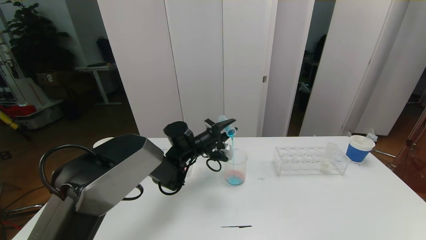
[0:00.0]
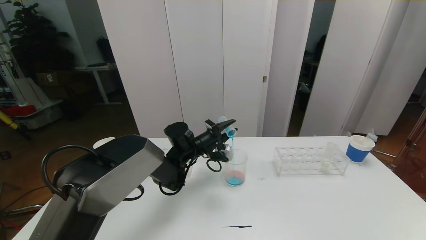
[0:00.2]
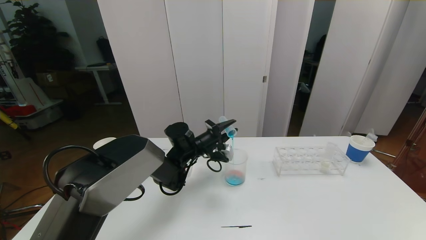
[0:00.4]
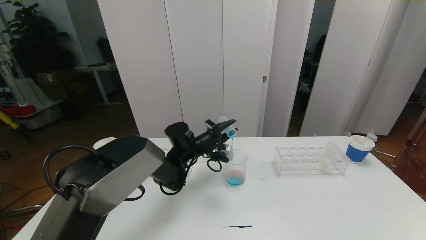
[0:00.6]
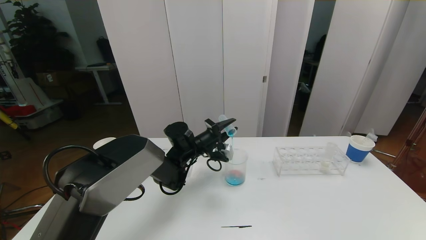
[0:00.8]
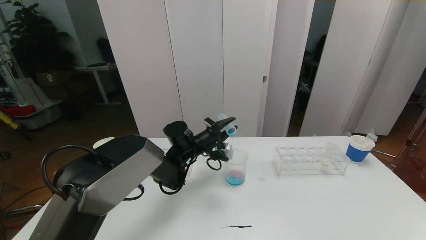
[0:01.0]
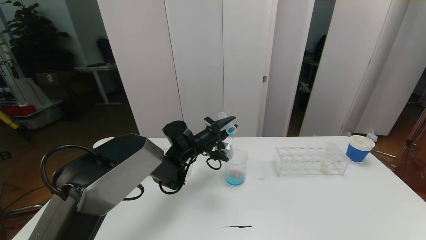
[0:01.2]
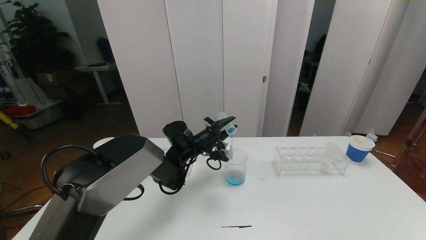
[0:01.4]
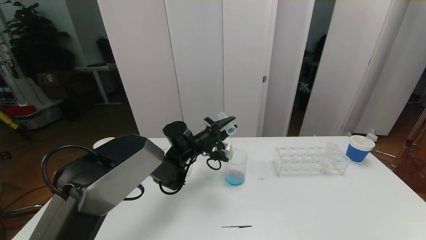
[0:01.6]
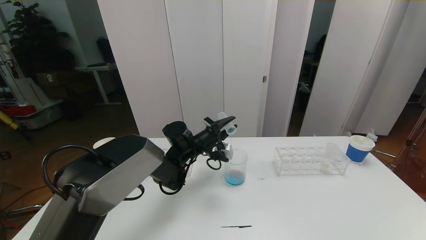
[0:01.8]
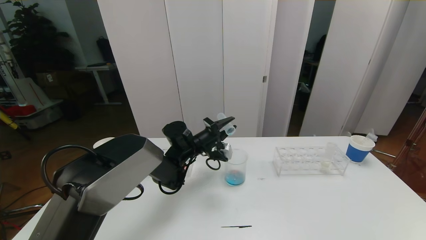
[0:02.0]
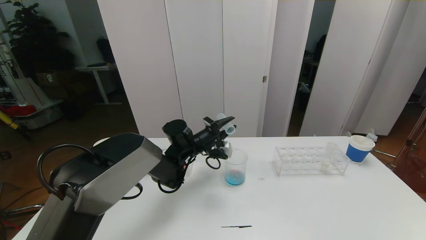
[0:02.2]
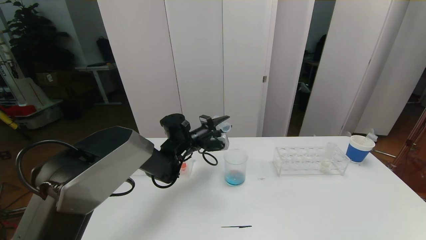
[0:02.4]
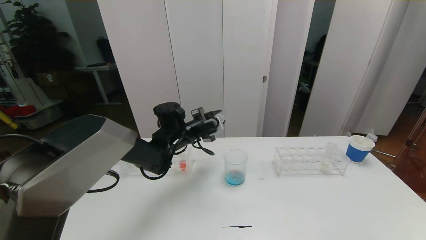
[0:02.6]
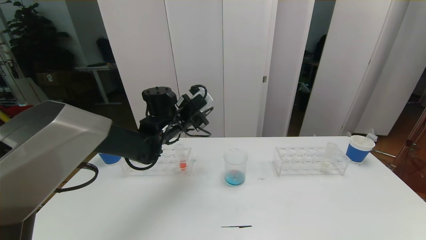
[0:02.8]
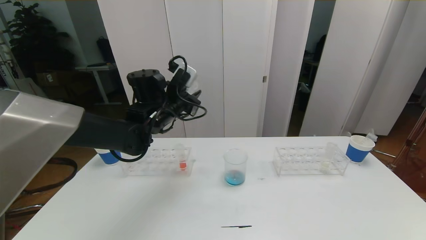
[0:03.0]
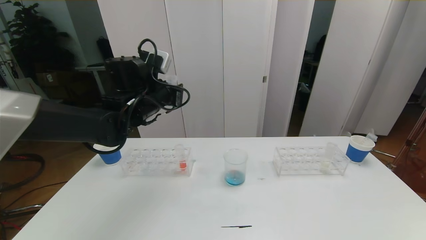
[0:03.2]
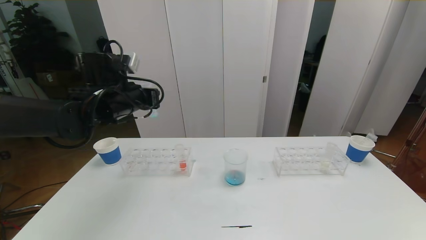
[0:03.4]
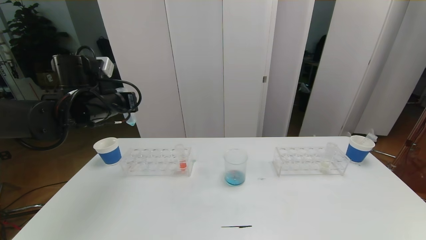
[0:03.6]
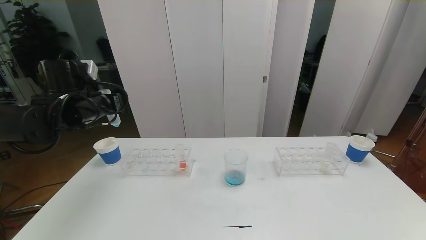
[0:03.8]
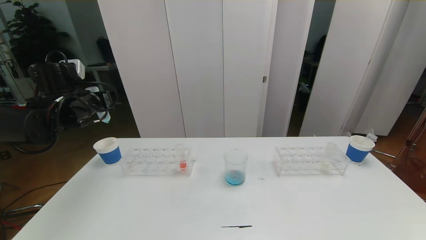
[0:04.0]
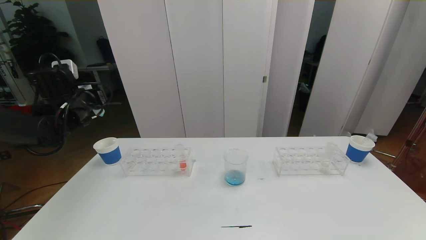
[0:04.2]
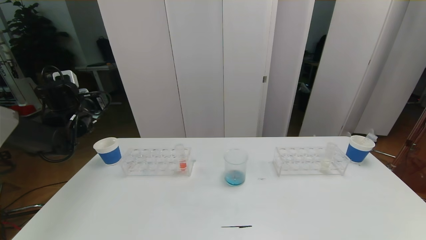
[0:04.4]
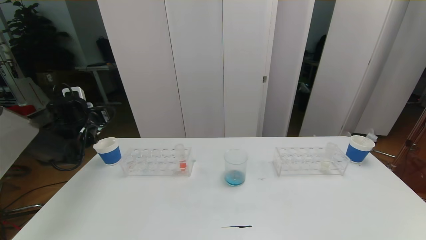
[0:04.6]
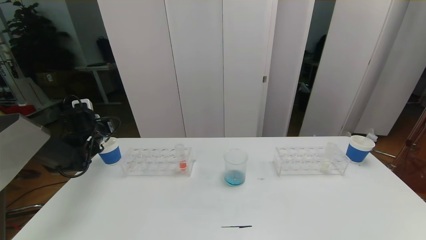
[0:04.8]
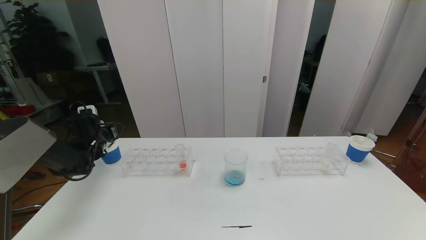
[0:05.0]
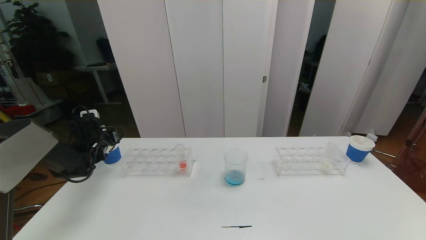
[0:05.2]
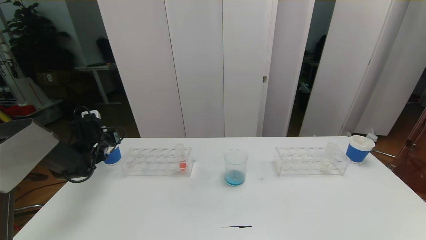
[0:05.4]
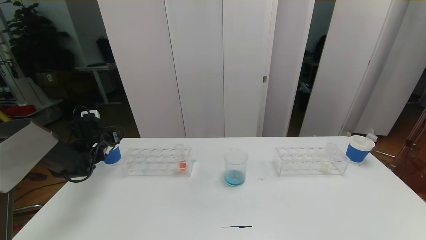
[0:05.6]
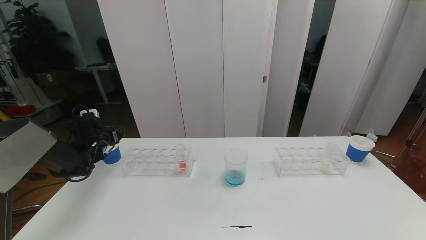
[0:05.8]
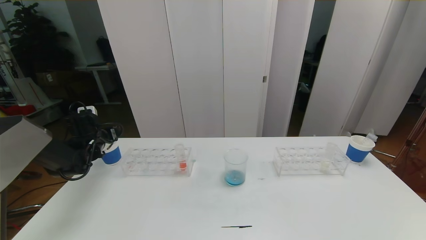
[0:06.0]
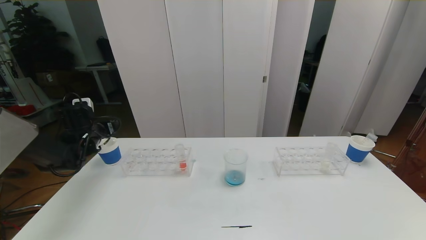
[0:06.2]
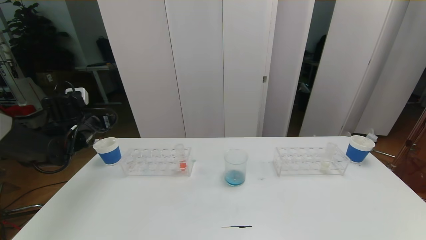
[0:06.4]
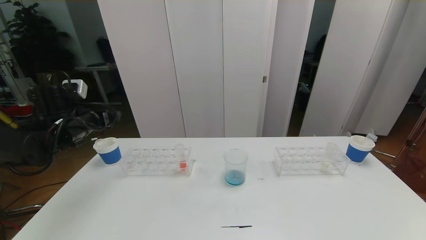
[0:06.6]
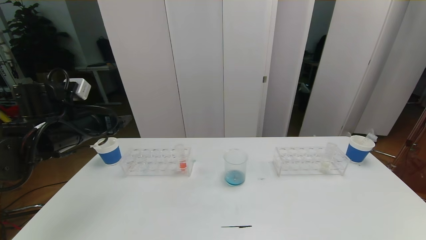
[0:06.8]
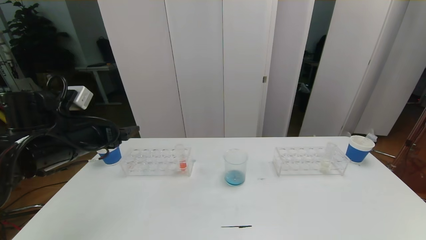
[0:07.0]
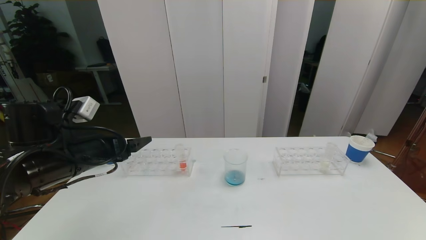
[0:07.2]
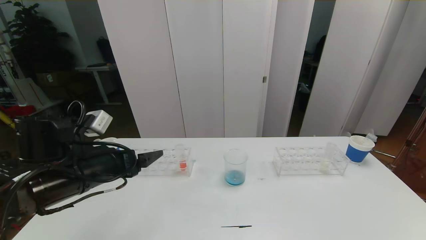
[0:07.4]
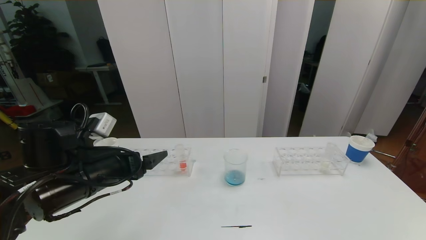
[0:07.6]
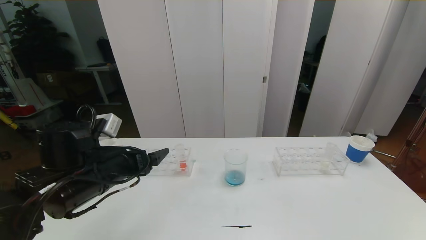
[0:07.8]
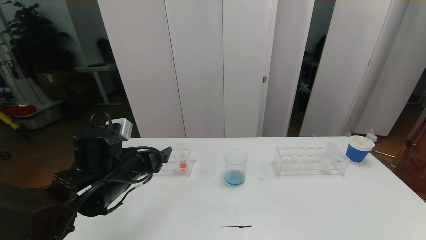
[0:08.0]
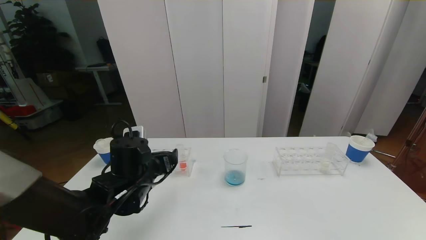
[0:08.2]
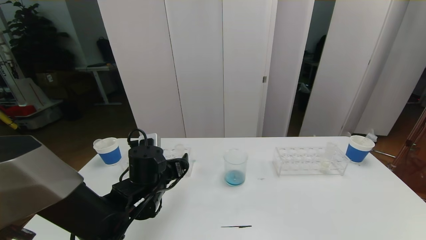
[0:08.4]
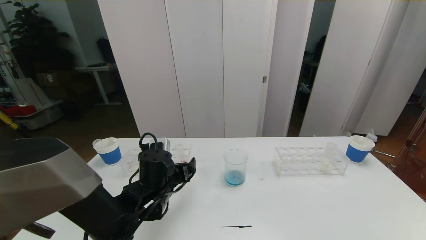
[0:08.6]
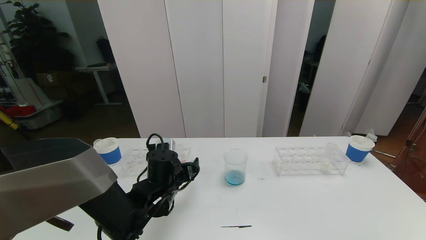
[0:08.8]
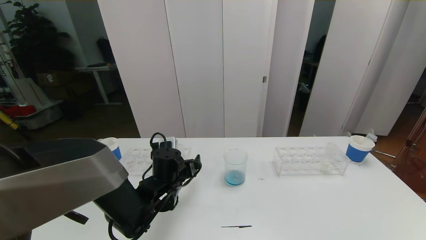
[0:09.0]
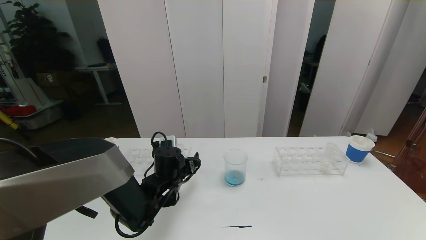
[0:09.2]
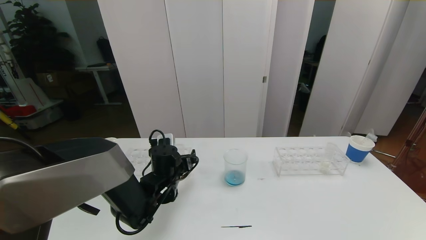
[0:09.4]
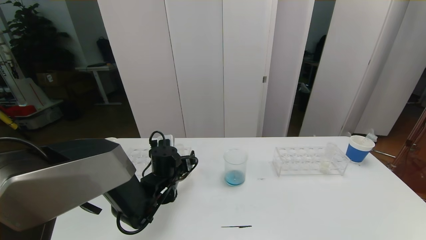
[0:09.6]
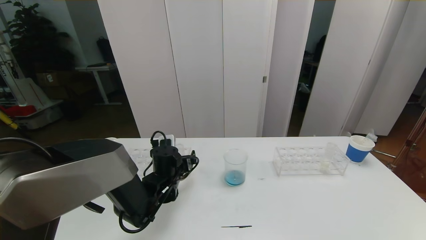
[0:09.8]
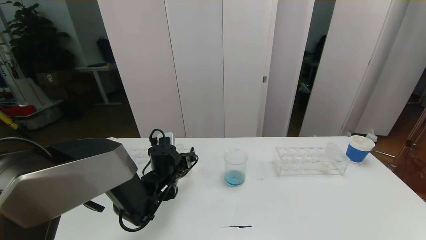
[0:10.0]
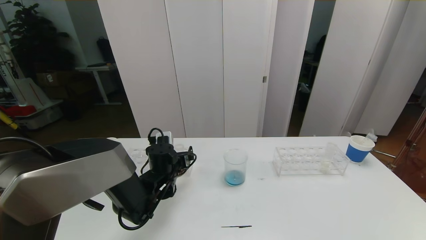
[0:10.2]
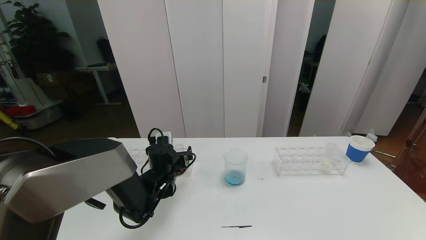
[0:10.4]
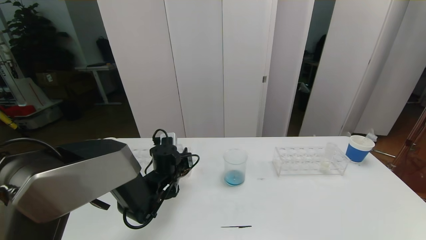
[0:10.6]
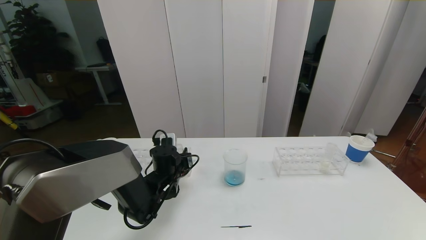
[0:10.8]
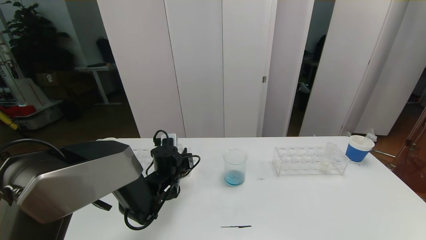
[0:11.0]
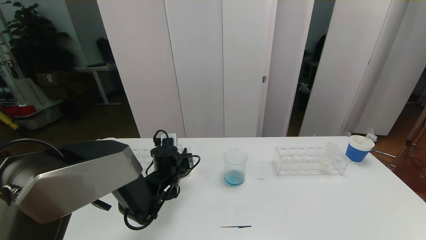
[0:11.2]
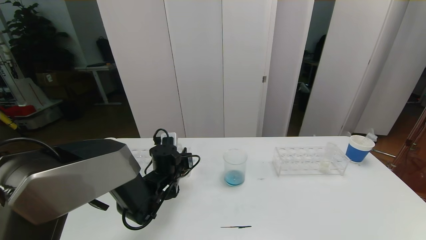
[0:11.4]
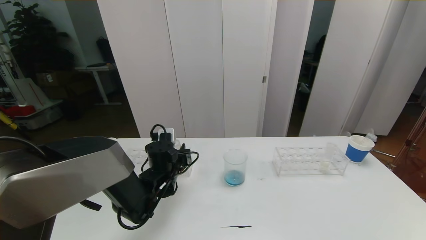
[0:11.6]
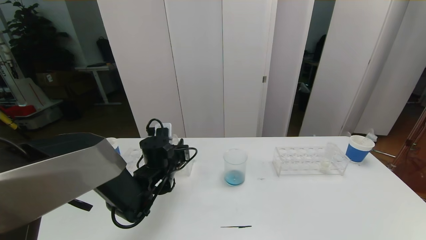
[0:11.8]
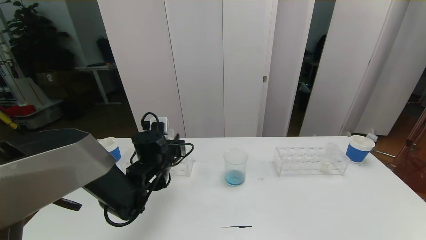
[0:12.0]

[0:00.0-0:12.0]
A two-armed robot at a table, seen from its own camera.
Task of the whole recording: pick up the test tube with red pigment the test tube with blue pigment and the test tube with white pigment by grippers and pour them into the beaker.
Step, 0:00.0 to 0:07.6: Pour the blue reagent into the graduated cylinder and place the test tube into the paper cup.
0:00.0 to 0:01.6: The two grippers keep their place.
0:01.6 to 0:03.0: The left gripper travels upward and to the left by roughly 15 cm.
0:03.0 to 0:04.4: The left gripper travels to the left by roughly 25 cm.
0:04.4 to 0:06.0: The left gripper is displaced downward by roughly 10 cm, and opens.
0:06.0 to 0:07.6: The left gripper heads backward and to the right, covering about 25 cm.
0:07.6 to 0:09.0: The left gripper is displaced downward, to the right and forward by roughly 20 cm.
0:09.0 to 0:10.4: The left gripper shifts by approximately 5 cm.
0:10.4 to 0:12.0: The left gripper moves upward, about 5 cm, and closes up.

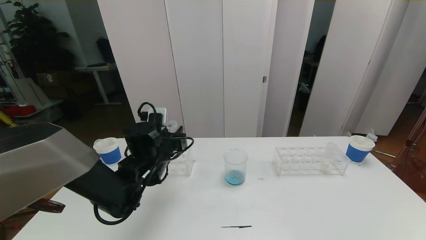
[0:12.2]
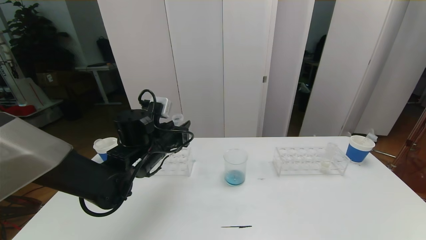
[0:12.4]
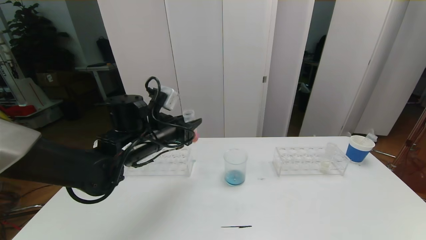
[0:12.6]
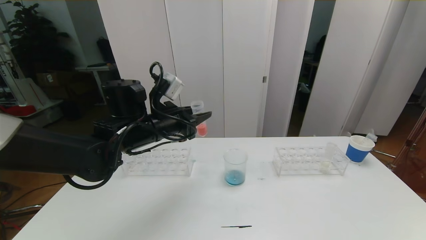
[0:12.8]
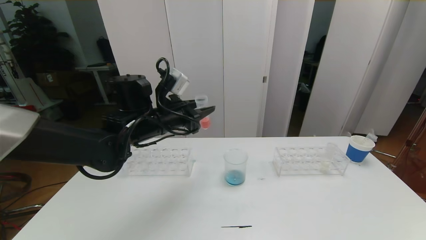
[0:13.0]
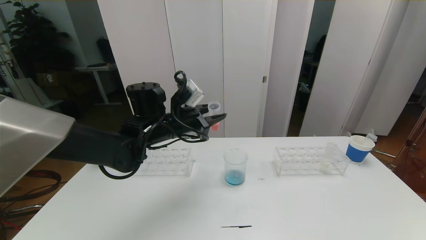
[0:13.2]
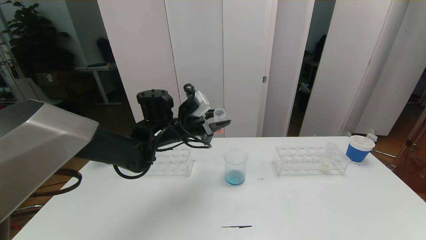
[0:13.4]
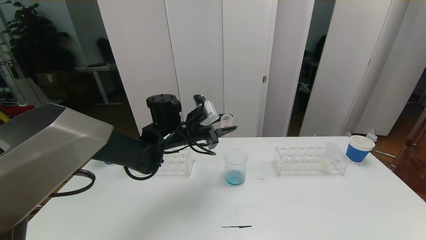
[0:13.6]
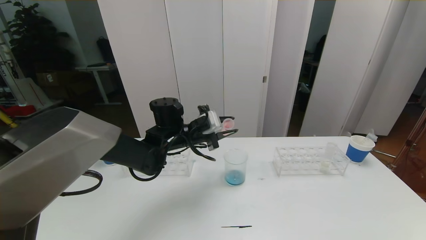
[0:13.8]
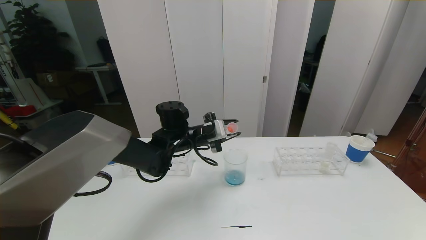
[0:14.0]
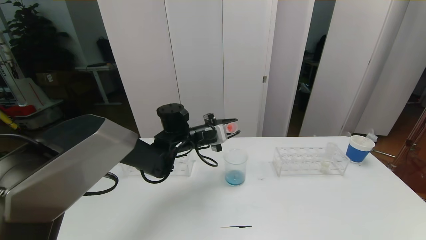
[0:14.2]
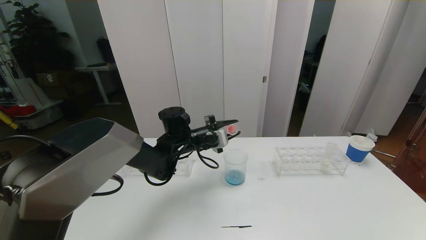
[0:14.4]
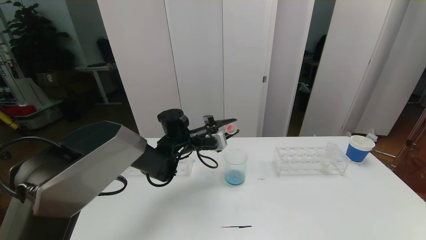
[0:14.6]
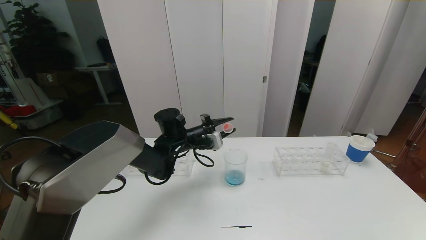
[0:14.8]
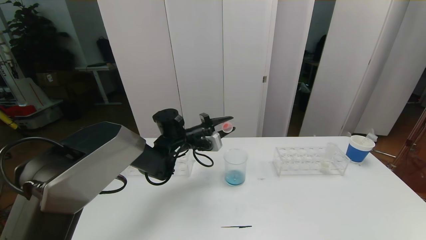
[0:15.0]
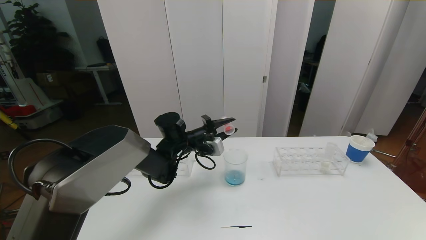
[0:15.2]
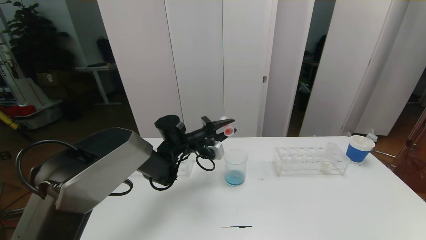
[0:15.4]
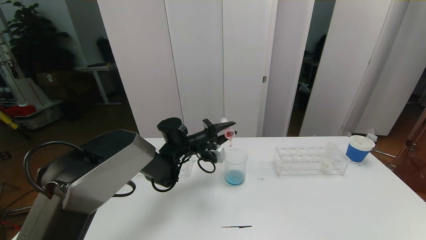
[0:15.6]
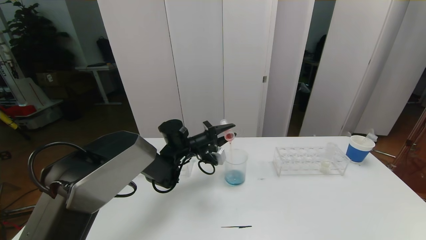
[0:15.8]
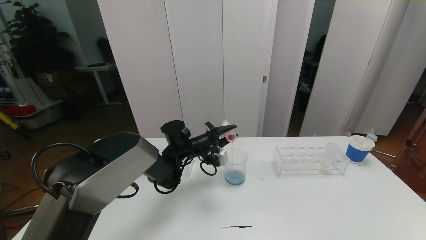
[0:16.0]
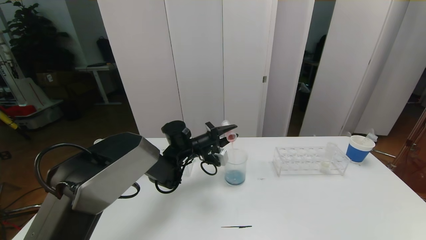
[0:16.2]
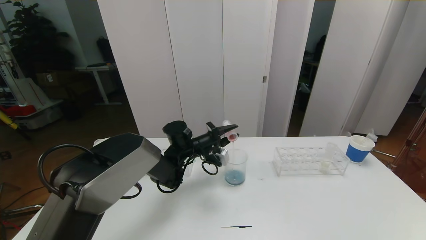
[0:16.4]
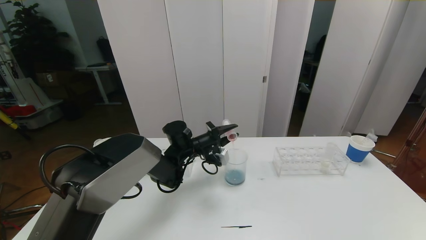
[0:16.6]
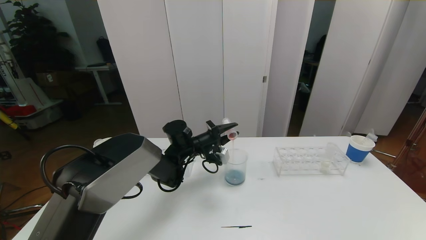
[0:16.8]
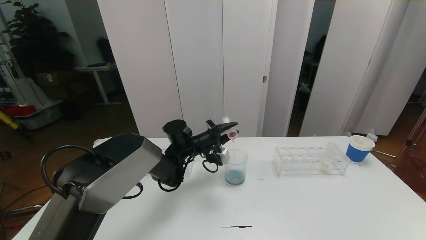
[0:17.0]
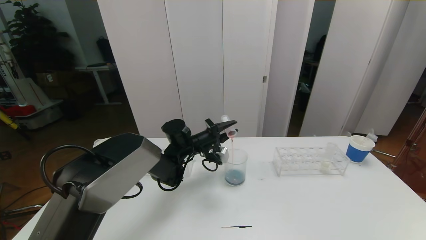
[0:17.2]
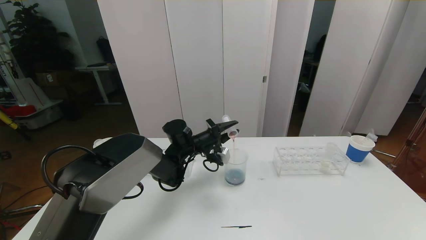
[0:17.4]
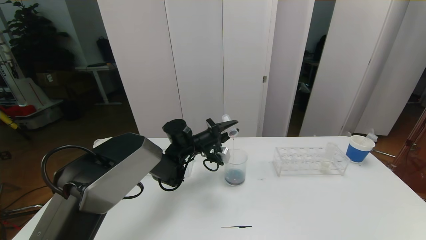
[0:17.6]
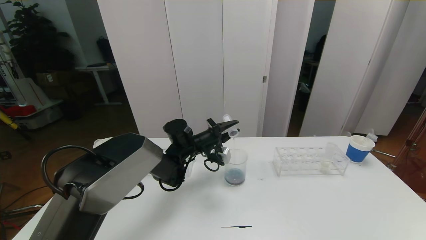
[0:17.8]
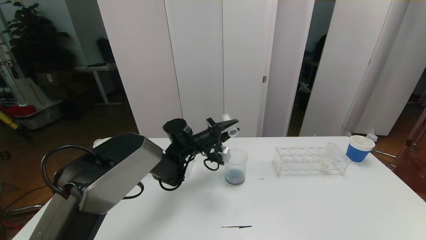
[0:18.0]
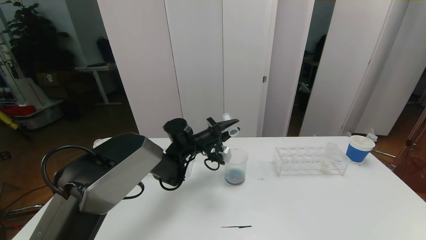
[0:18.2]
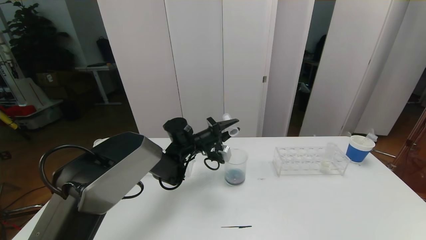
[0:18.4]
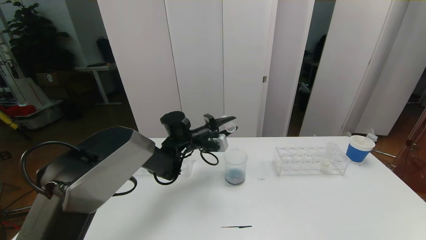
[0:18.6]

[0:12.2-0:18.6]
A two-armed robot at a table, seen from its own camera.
Task of the whole recording: pick up the test tube with red pigment the test tube with blue pigment and the test tube with white pigment by grippers and pour them into the beaker.
0:12.2 to 0:13.8: The left gripper travels forward and to the right by approximately 10 cm, and goes upward and returns, some 10 cm each way.
0:13.8 to 0:15.4: The left gripper is displaced downward by about 5 cm.
0:15.4 to 0:18.6: The grippers make only small movements.
